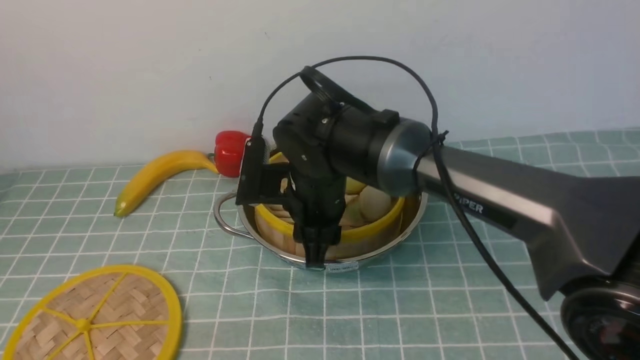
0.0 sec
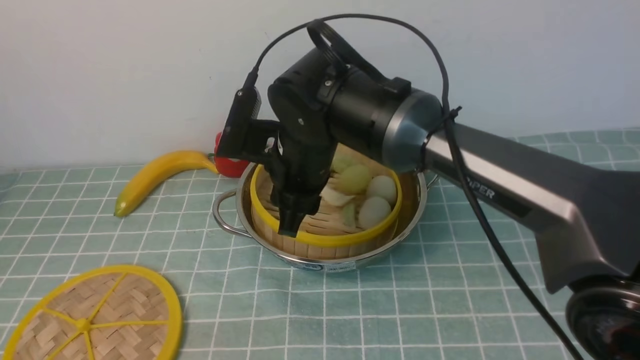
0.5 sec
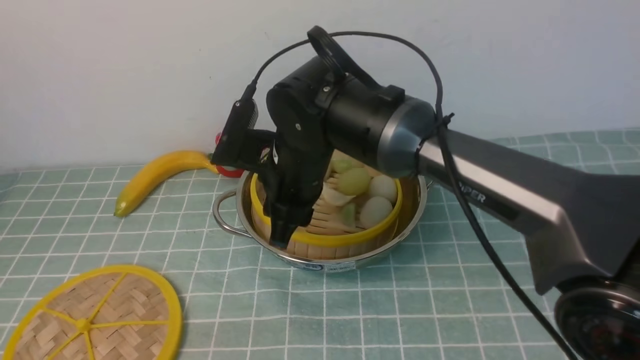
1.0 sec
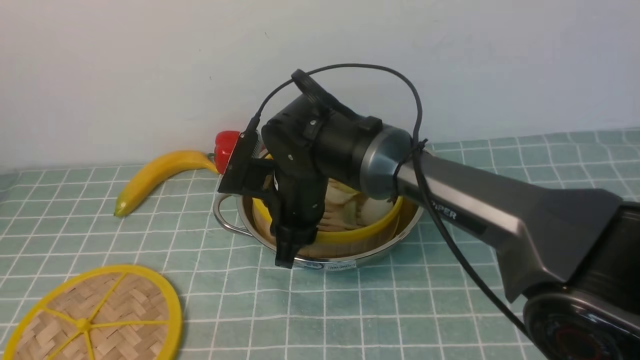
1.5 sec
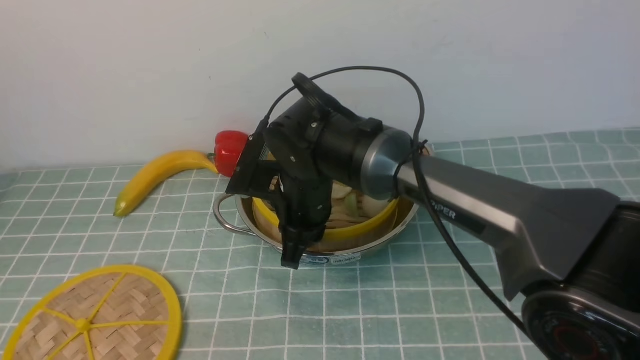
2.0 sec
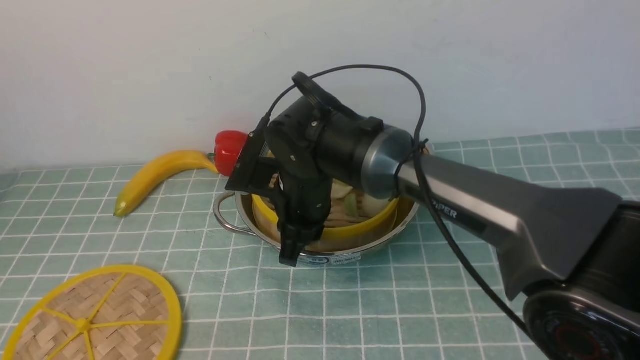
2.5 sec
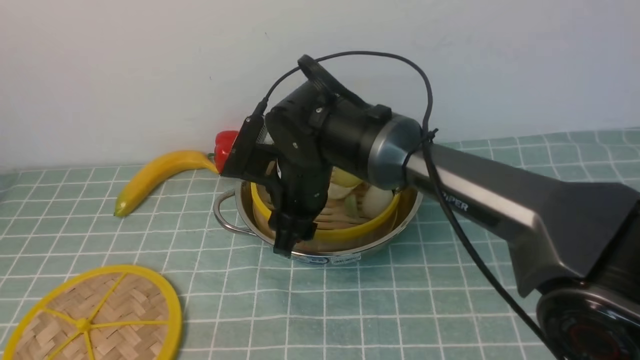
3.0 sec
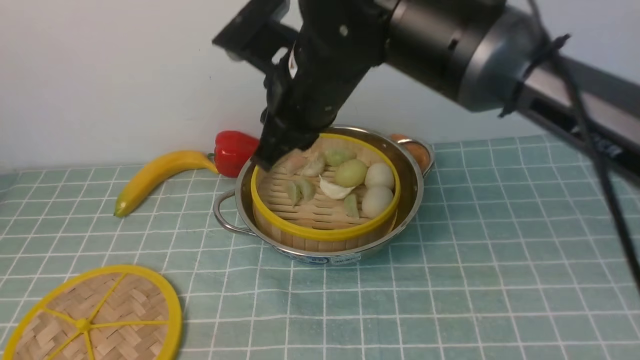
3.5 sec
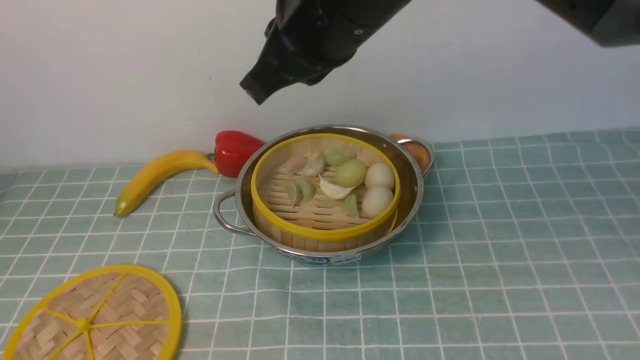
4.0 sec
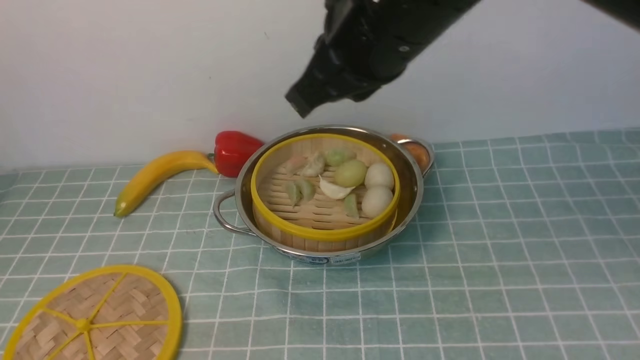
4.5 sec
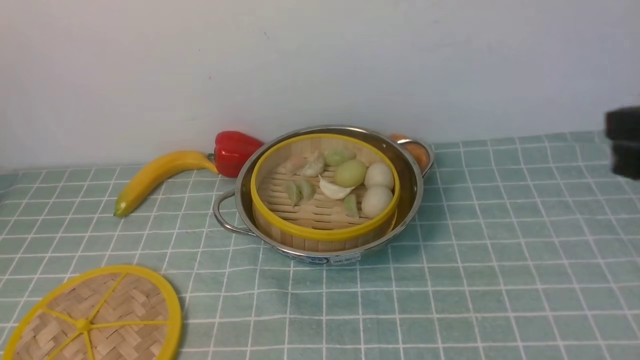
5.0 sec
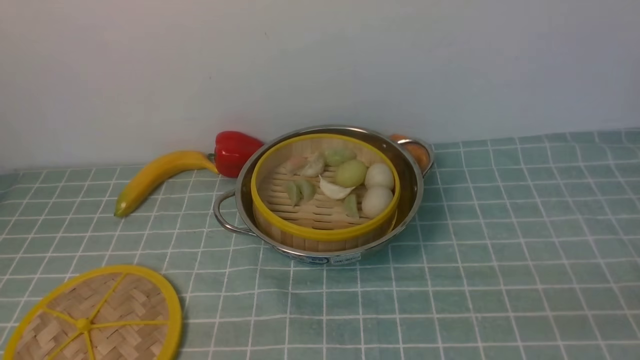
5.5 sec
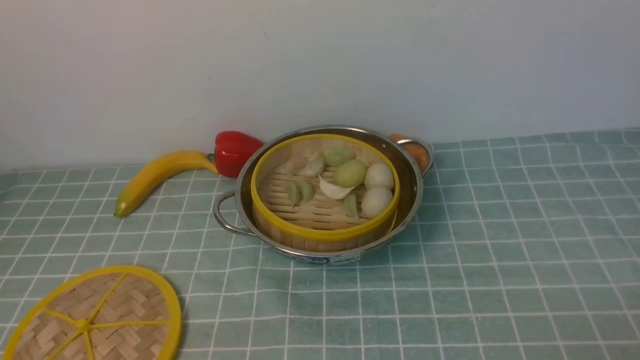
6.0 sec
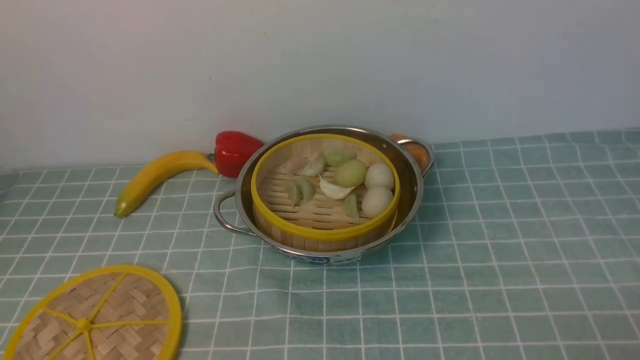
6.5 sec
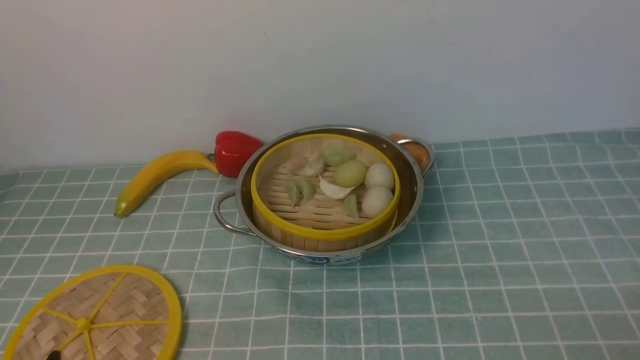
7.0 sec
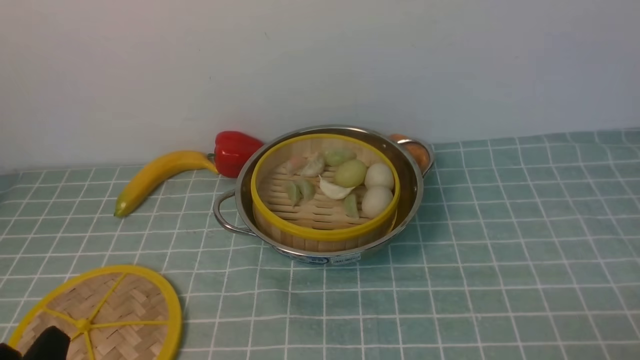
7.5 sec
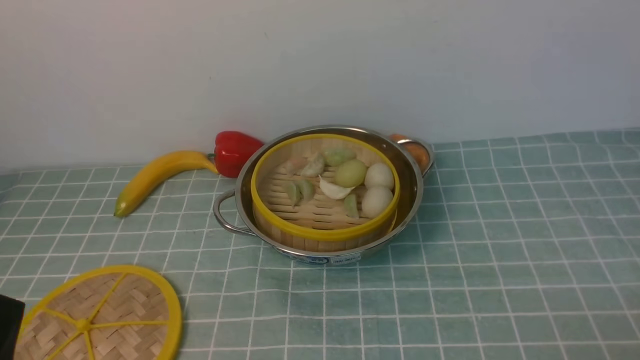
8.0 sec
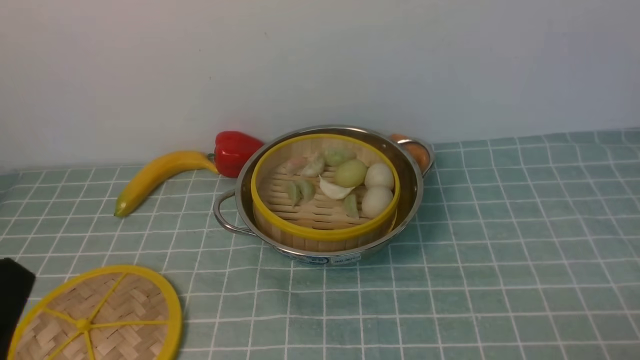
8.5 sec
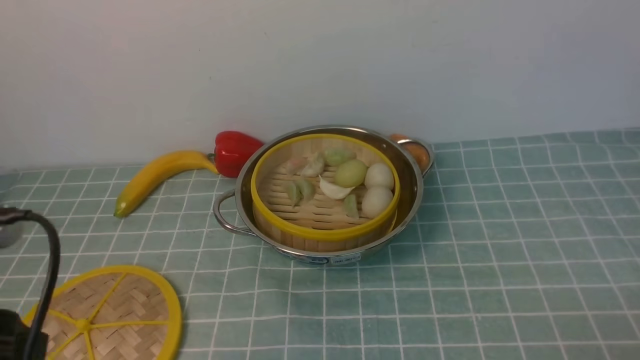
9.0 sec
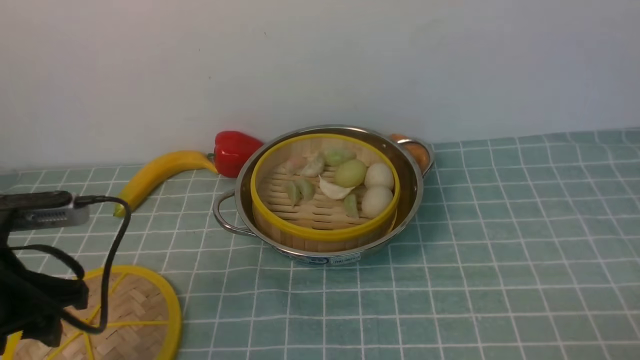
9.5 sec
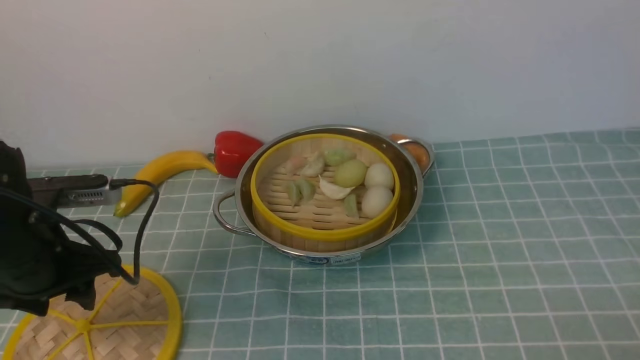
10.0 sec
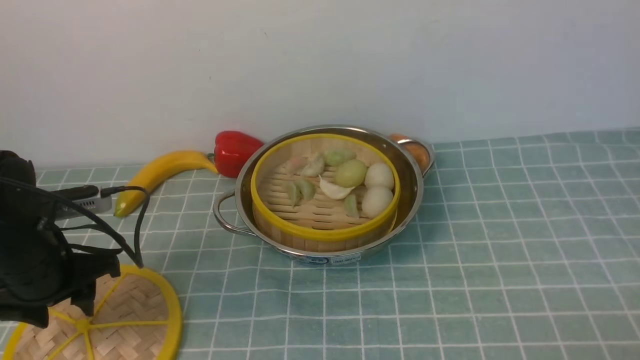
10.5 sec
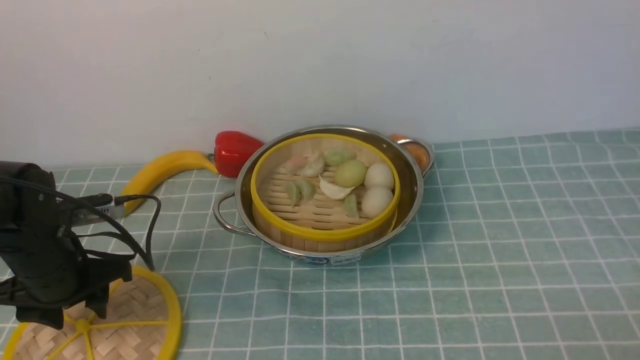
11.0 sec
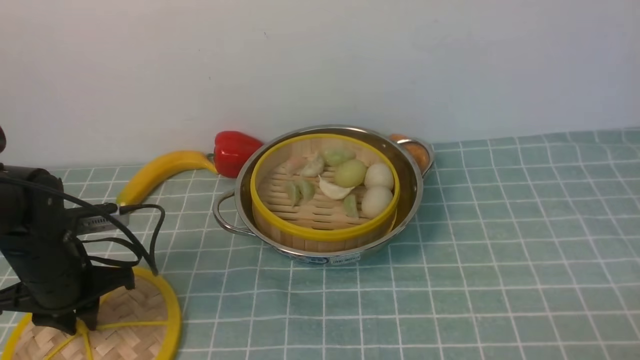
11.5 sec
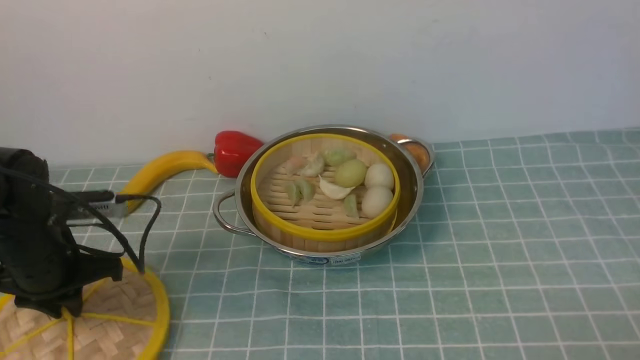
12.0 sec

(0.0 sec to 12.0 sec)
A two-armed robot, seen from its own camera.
Task of the whole recording: place the steamer in the pot on the blue tablecloth, and put the lid on the steamer.
Step, 0.0 sec - 4.0 sec: use the right arm to put the steamer into the iron steamer pot in the middle.
0.0 sec - 2.0 sec: The right gripper closes.
2.0 sec - 4.0 sec: The right gripper moves upward, about 20 cm, and opens, then closes again.
4.0 sec - 6.0 sec: The right gripper travels to the right, downward and backward by about 50 cm, and opens.
8.0 sec - 10.0 sec: The left gripper is displaced forward by approximately 20 cm.
10.0 sec - 12.0 sec: The left gripper closes up.

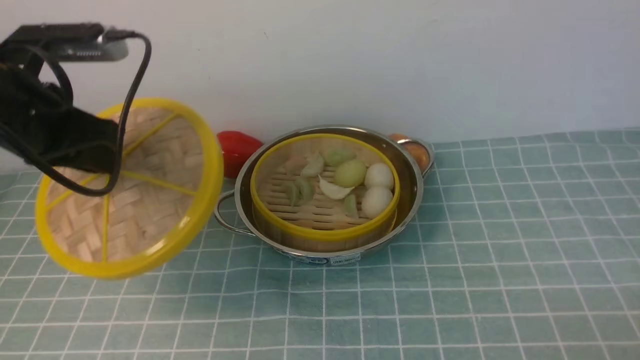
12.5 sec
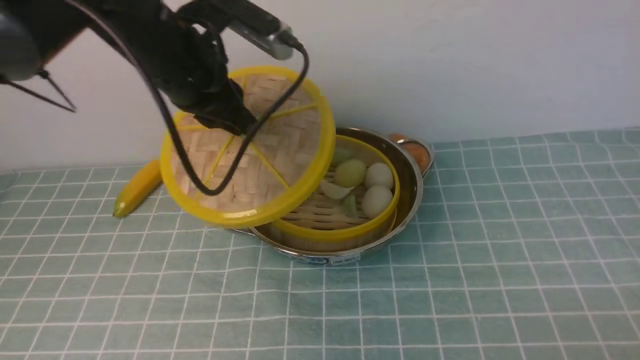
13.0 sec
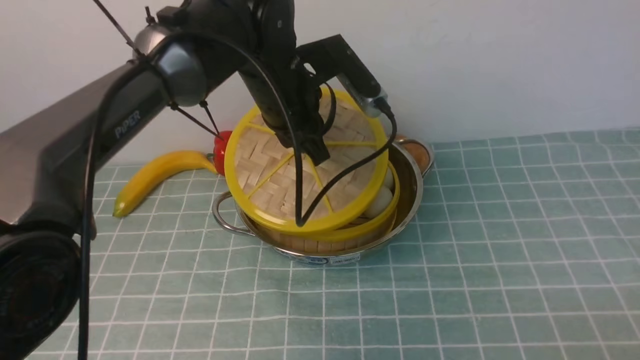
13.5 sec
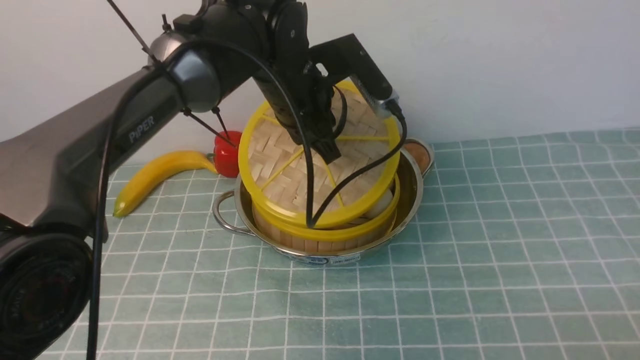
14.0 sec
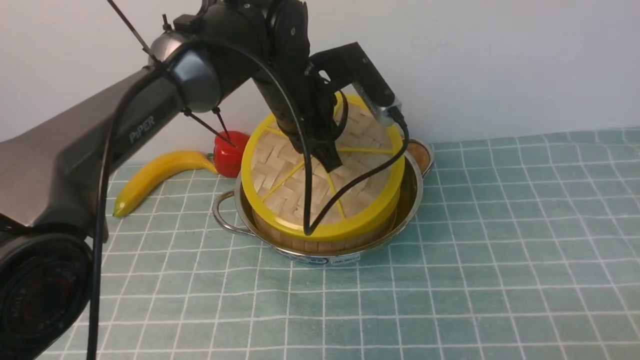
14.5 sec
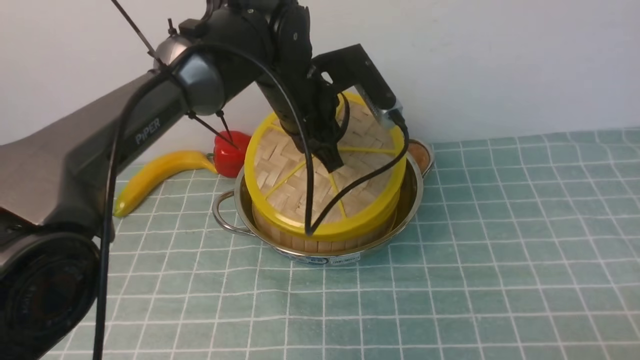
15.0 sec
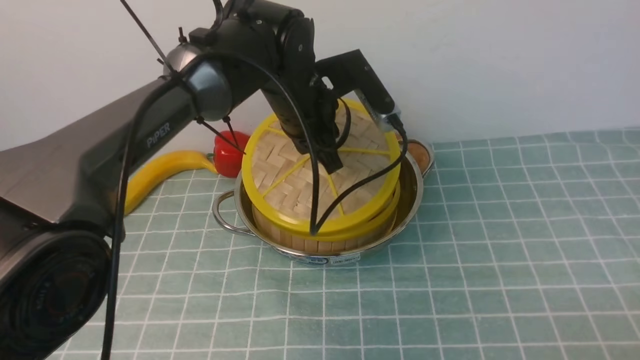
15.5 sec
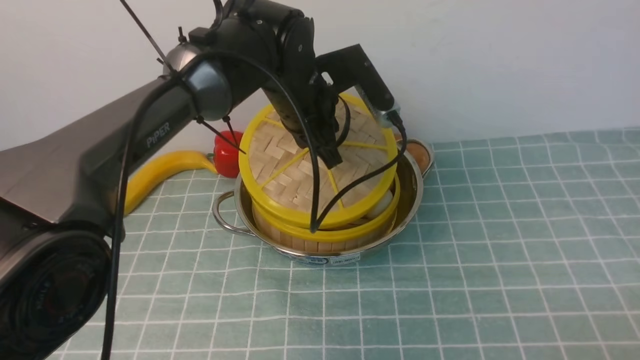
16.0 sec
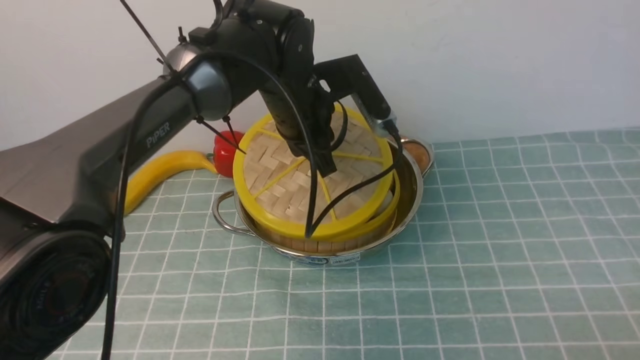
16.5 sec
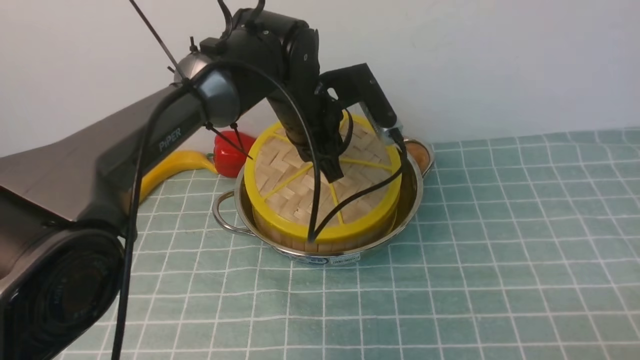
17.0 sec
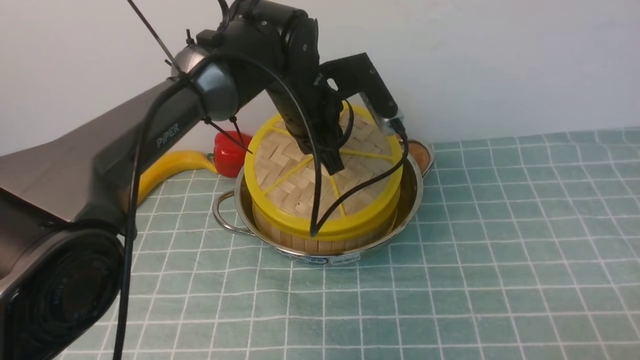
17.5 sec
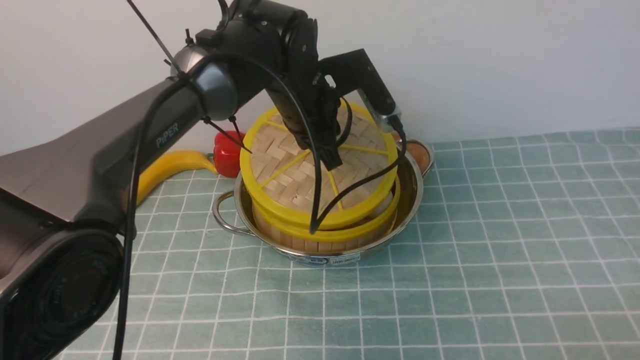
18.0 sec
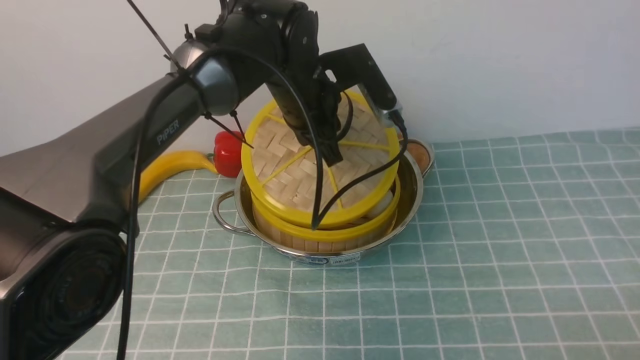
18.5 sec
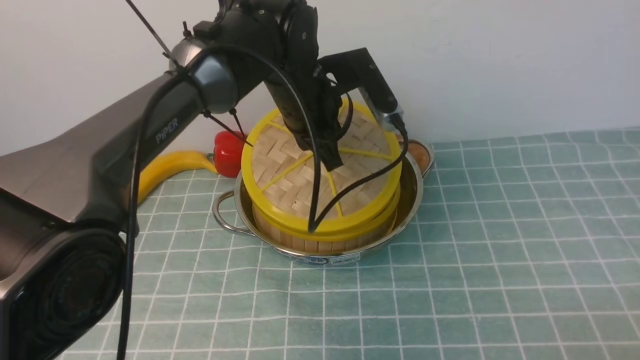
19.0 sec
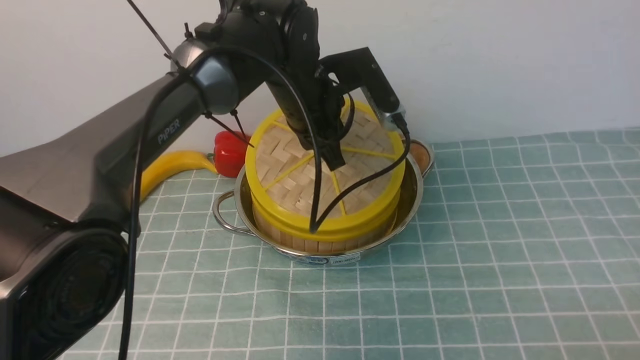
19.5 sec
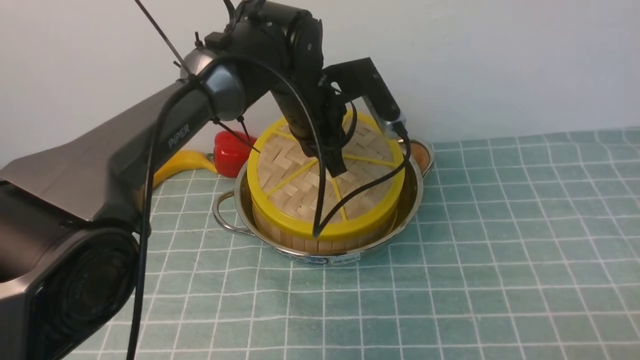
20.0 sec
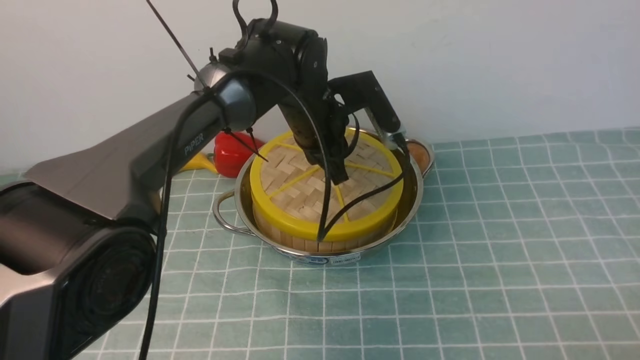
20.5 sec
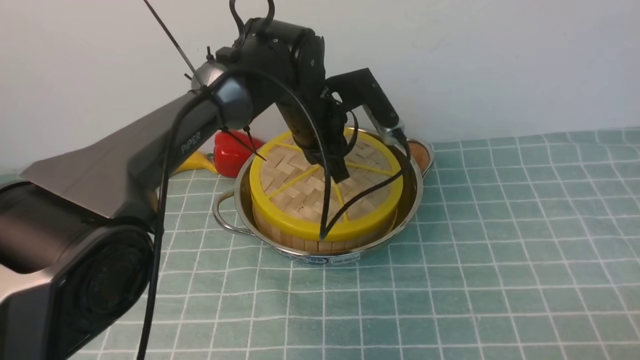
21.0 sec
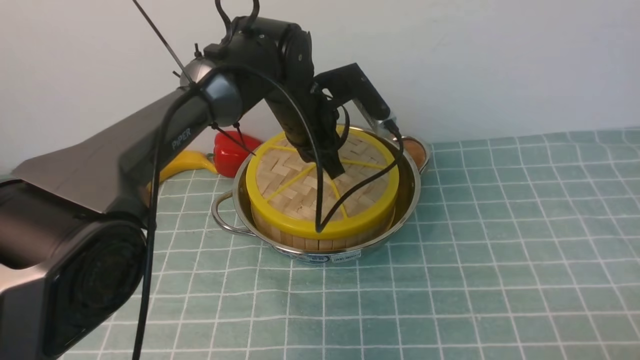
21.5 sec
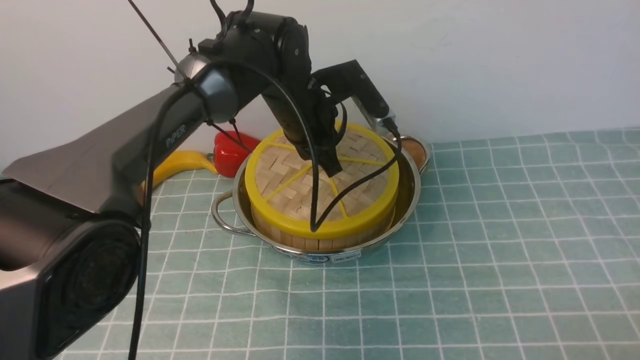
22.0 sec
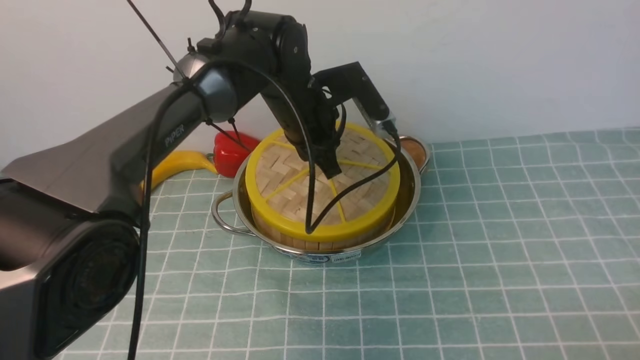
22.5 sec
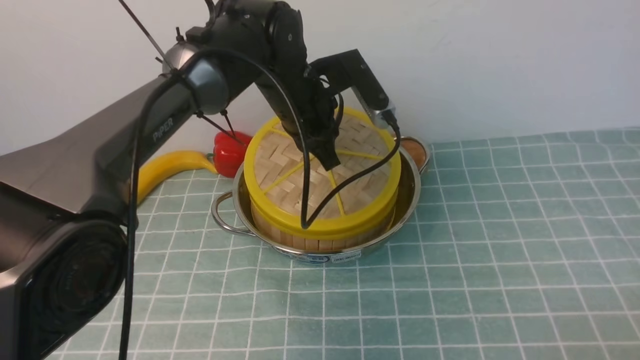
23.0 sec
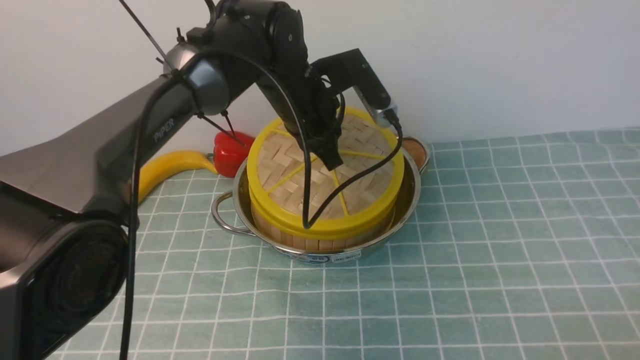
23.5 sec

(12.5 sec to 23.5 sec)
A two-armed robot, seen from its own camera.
Task of the whole recording: place the steamer in the pot on the blue tablecloth, and put the lid on the steamer.
12.5 sec - 14.5 sec: The left gripper travels to the right and forward by roughly 25 cm.
14.5 sec - 18.0 sec: The grippers make only small movements.
18.0 sec - 20.0 sec: Neither gripper changes place.
20.0 sec - 23.5 sec: The grippers move only a little.
